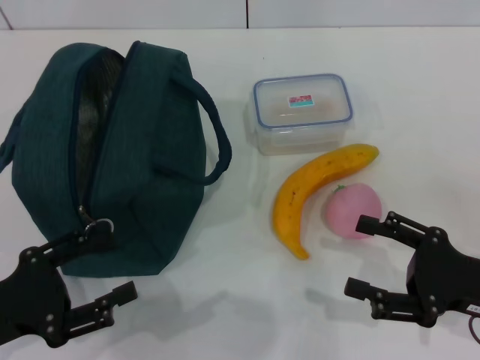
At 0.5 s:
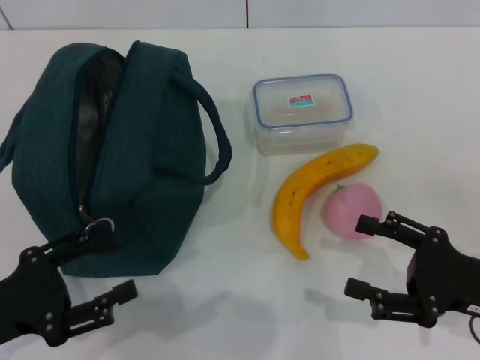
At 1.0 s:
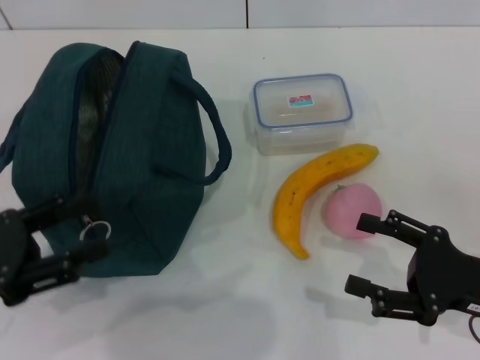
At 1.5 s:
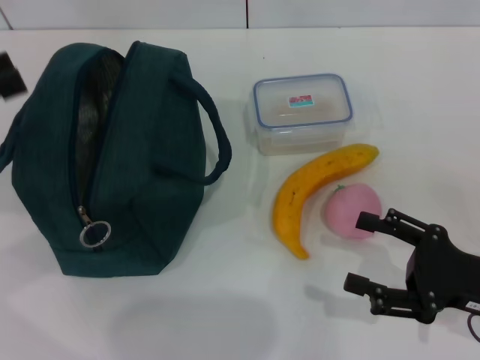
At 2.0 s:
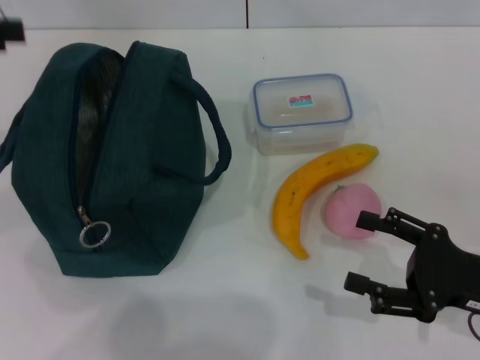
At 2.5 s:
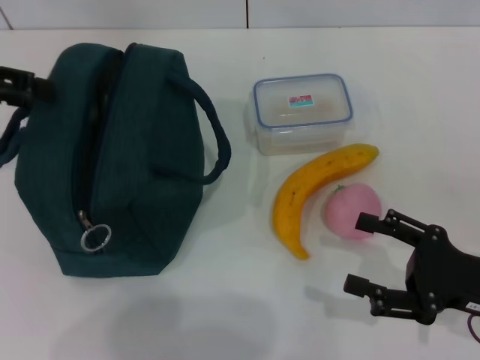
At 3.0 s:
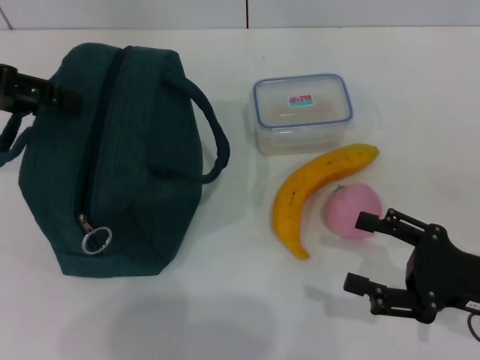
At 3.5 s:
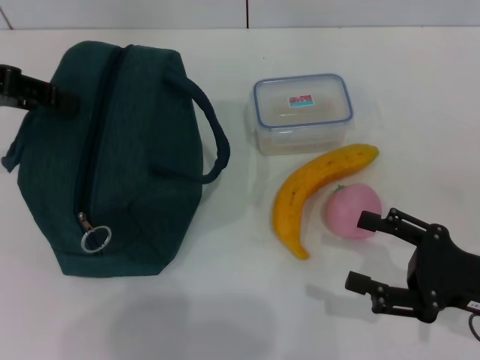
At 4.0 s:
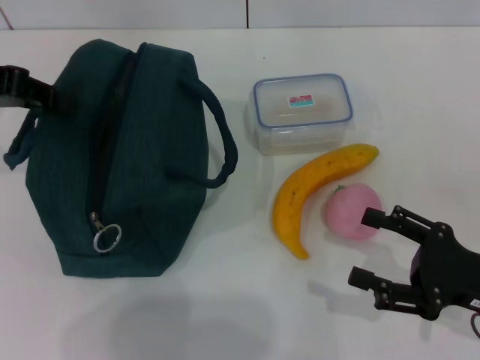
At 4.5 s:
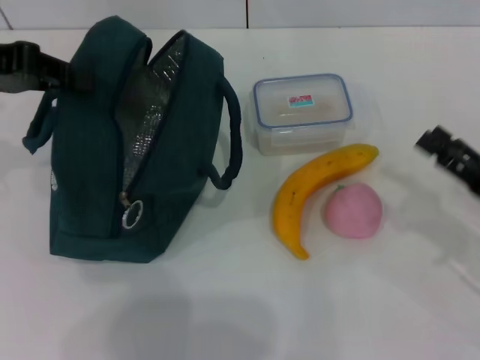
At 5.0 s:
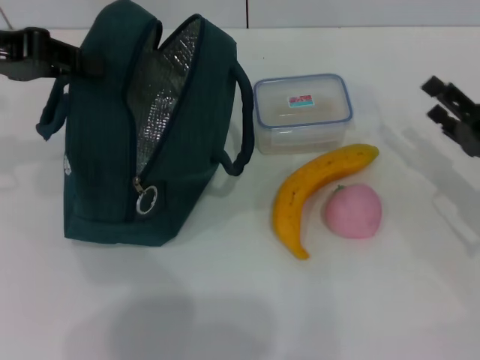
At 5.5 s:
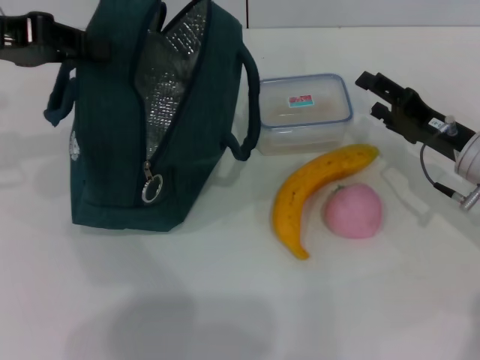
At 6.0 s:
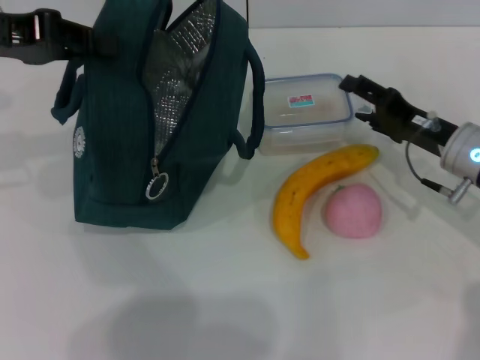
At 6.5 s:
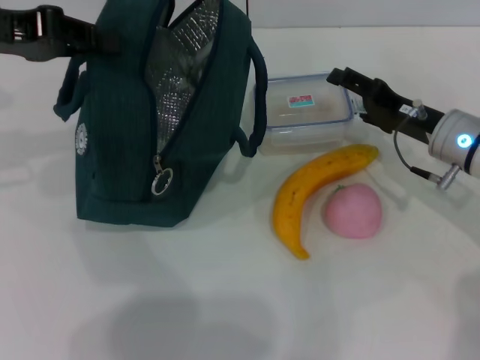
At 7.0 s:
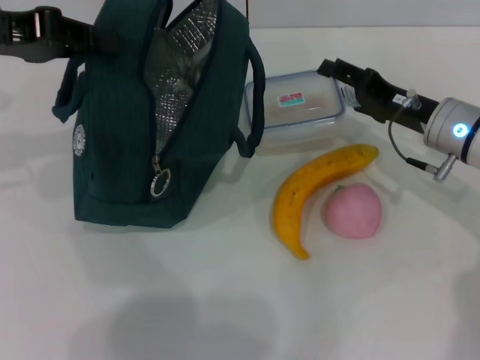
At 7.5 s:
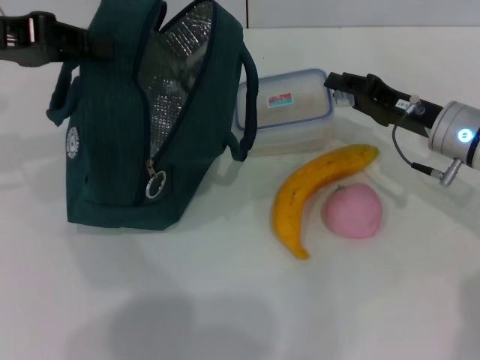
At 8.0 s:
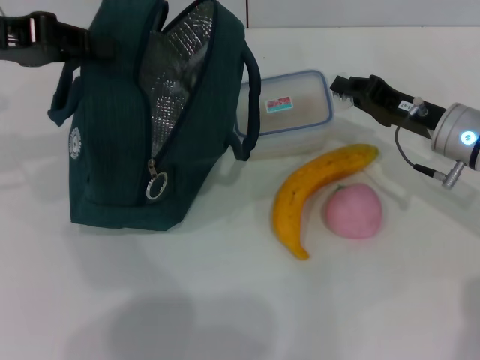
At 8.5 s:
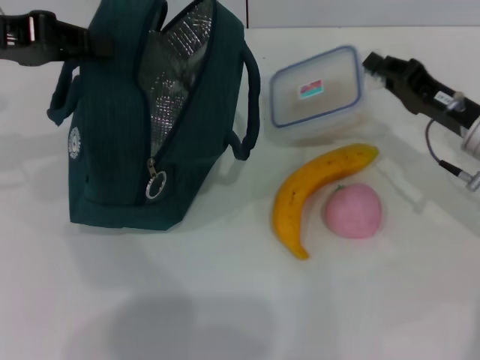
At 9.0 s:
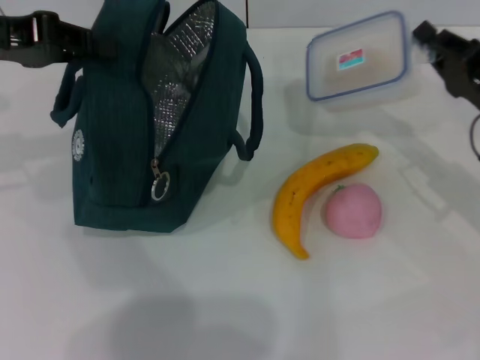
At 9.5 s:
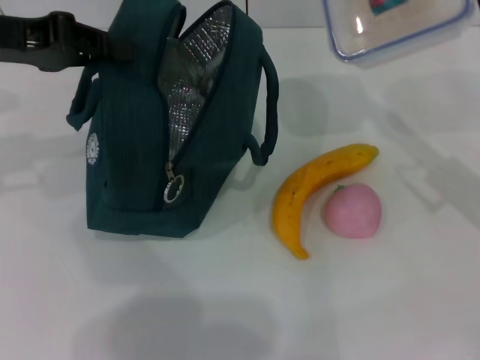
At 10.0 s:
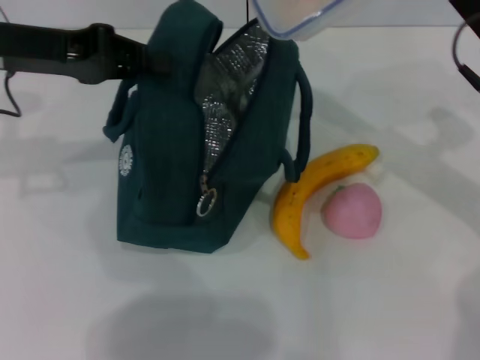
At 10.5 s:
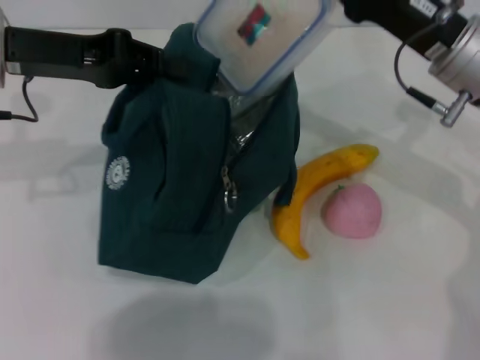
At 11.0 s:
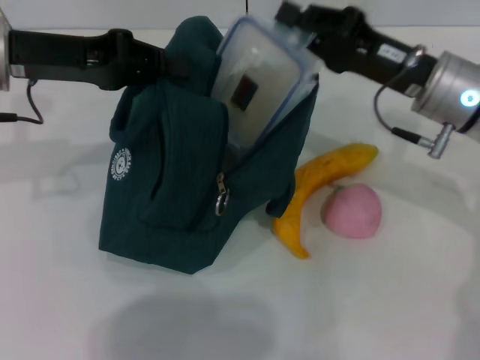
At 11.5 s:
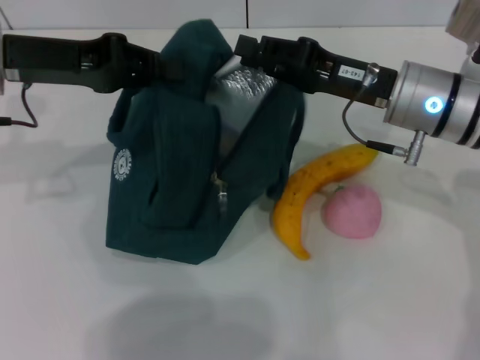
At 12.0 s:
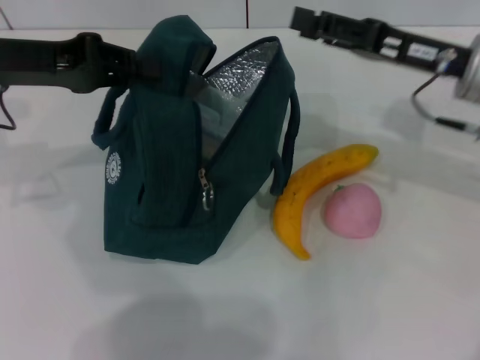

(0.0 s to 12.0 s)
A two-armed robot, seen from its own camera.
Step, 0.0 s - 3.5 s: Hold the lunch bag with your left hand.
Step, 4.0 s - 7.5 s: Pick up the lunch box with your right hand.
Step, 8.5 s - 11.0 s: Place the lunch box into the lunch bag with your right hand.
0.0 s - 2.0 s: The left gripper heads upward and forward, covering about 25 cm.
2.0 s - 4.0 s: The left gripper changes place by roughly 5 cm, and closes.
4.0 s - 6.0 s: The right gripper shifts about 15 cm forward.
6.0 s - 8.0 s: The right gripper closes its fingers.
8.0 s - 10.0 s: The right gripper goes about 10 cm upward.
10.0 s - 12.0 s: The right gripper opens its fingers.

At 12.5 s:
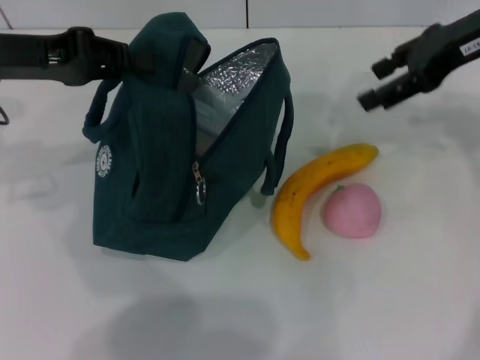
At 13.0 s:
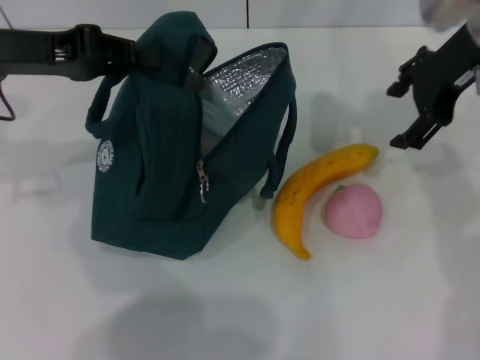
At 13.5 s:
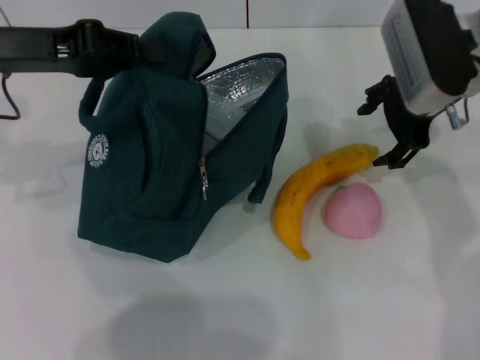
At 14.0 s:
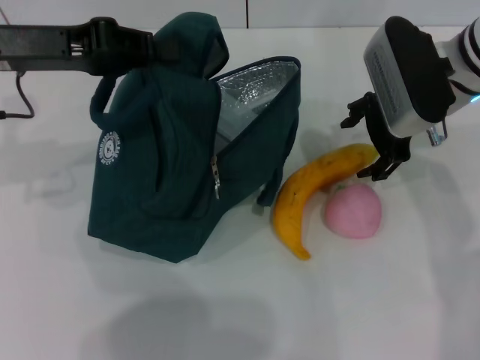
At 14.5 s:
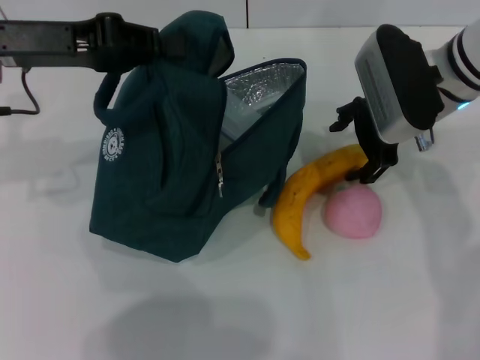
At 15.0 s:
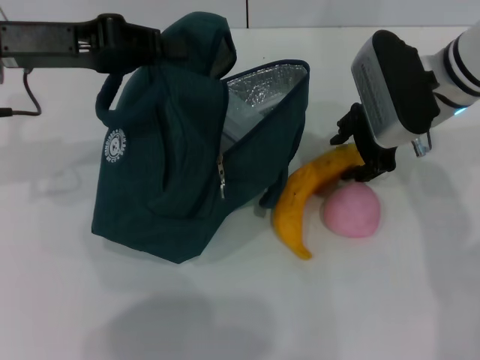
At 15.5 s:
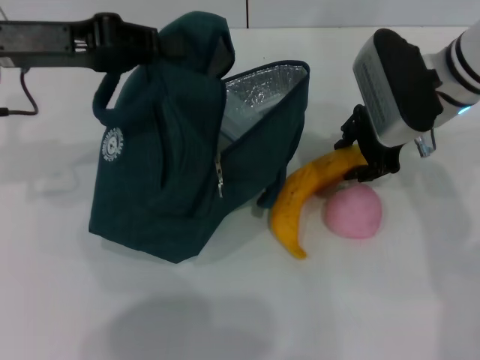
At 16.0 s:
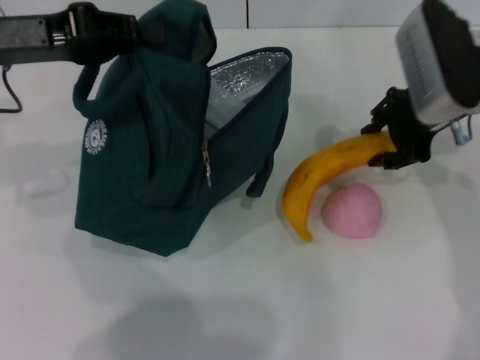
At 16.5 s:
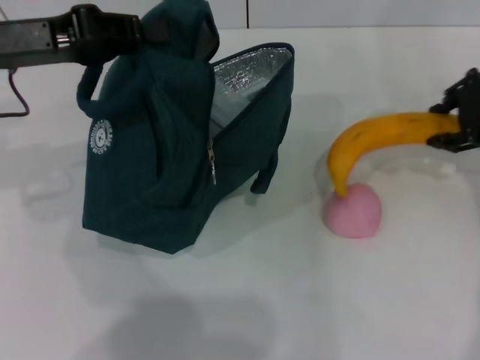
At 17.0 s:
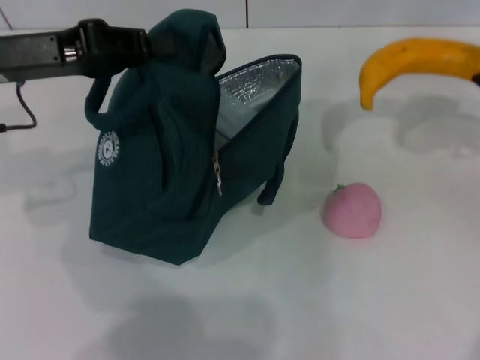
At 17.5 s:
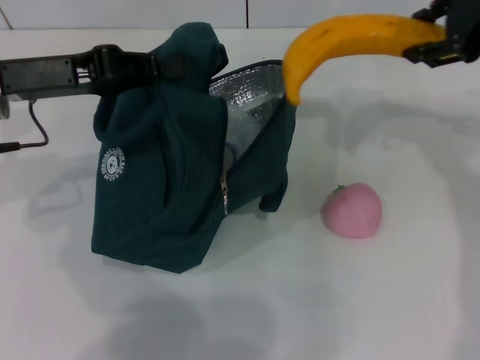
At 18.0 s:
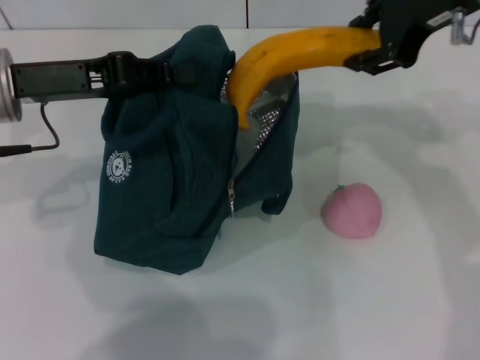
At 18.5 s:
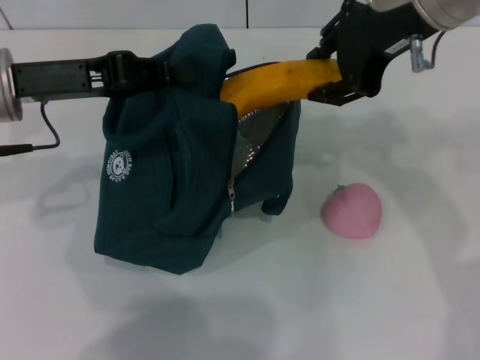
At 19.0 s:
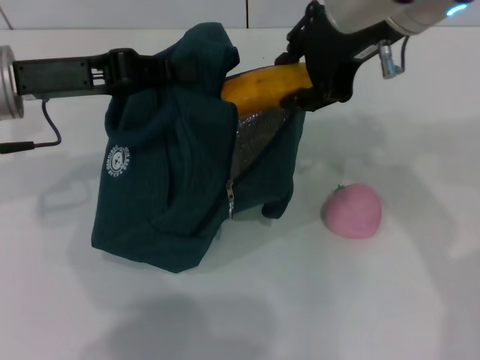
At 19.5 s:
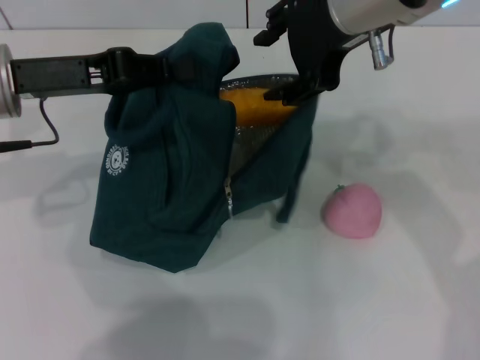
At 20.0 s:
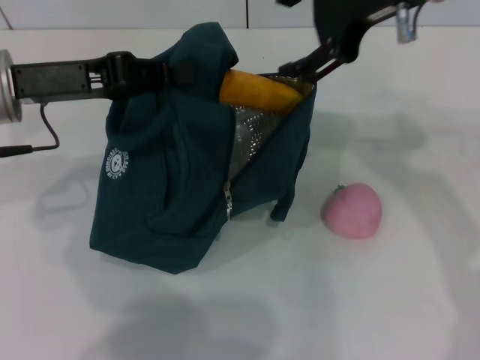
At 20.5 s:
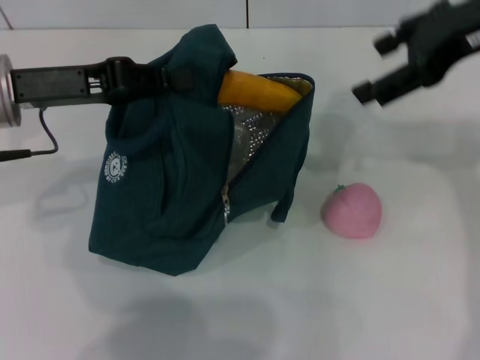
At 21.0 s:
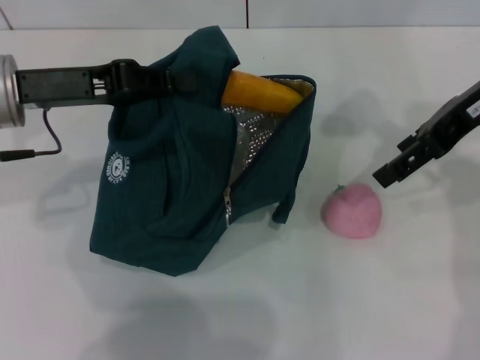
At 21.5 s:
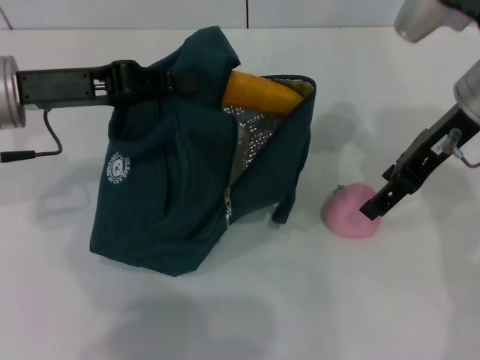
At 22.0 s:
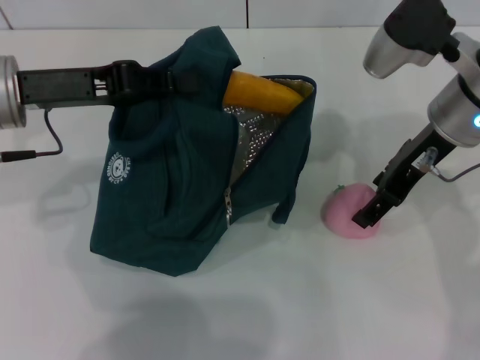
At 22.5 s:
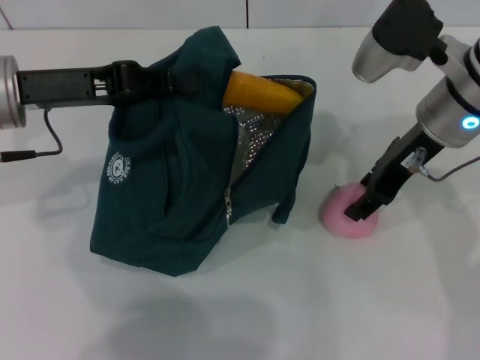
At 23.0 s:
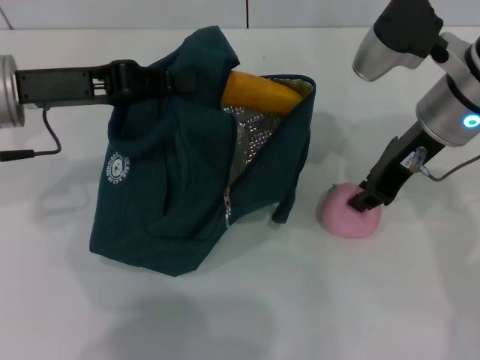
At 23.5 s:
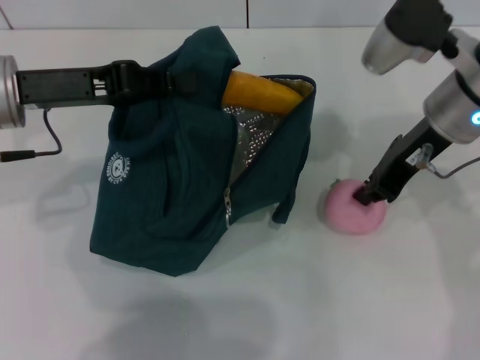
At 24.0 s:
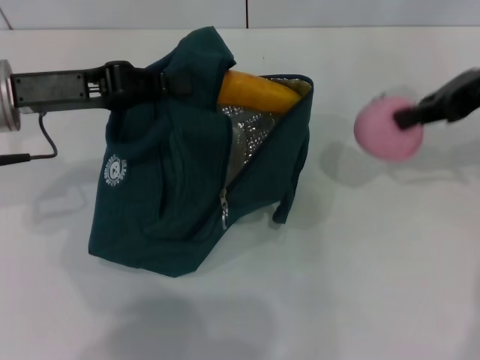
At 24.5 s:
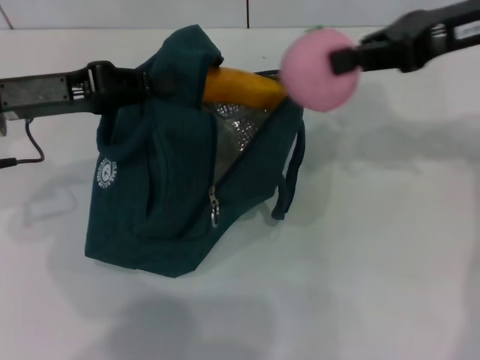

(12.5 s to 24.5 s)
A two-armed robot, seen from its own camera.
Step, 12.5 s - 15.5 s: Take the banana with your right hand.
Step, 16.0 s - 19.5 s: Put the banana into the lunch bag with your right hand.
Step, 20.0 s - 22.5 s: Grab the peach with your right hand.
12.5 s - 14.5 s: The right gripper is displaced downward and to the left by about 10 cm.
14.5 s - 16.5 s: The right gripper is displaced to the right by some 10 cm, and closes its fingers.
16.5 s - 18.5 s: The right gripper is displaced to the left and upward by some 15 cm.
18.5 s - 20.5 s: The right gripper heads to the right, covering about 10 cm, and opens its fingers.
20.5 s - 22.5 s: The right gripper heads downward and to the left, covering approximately 10 cm.
22.5 s - 24.5 s: The right gripper shifts approximately 10 cm upward and to the right, and closes.

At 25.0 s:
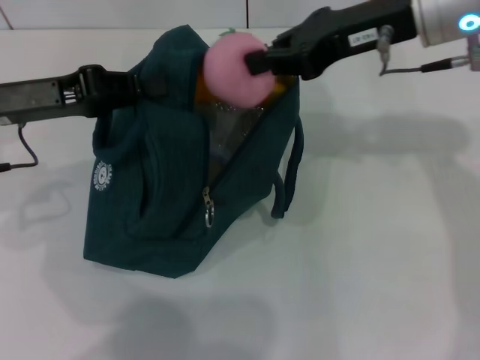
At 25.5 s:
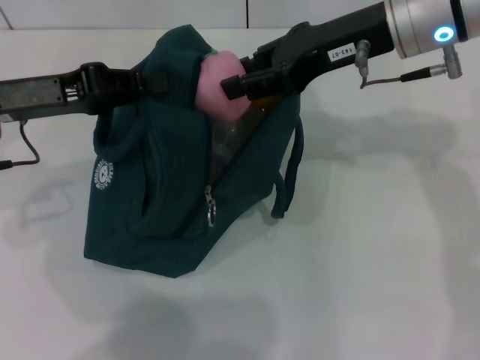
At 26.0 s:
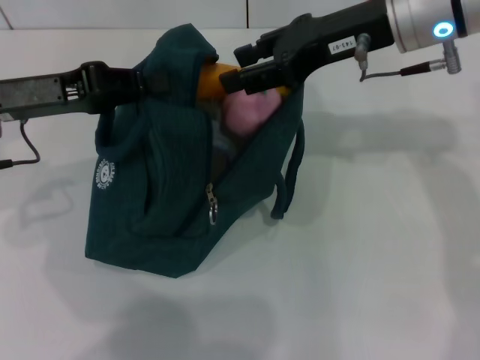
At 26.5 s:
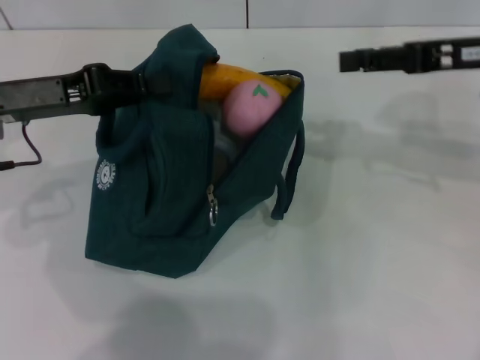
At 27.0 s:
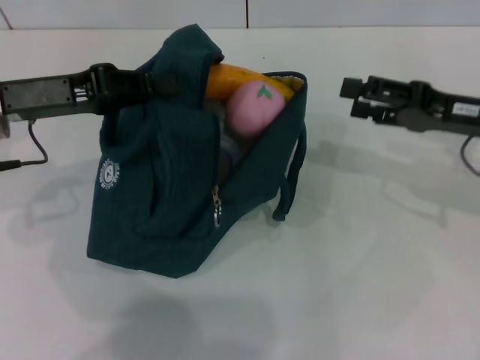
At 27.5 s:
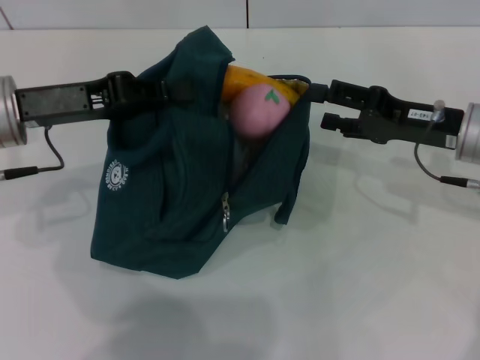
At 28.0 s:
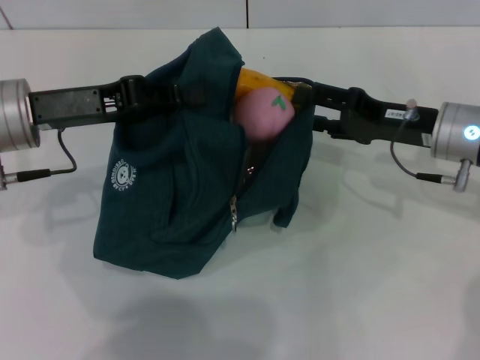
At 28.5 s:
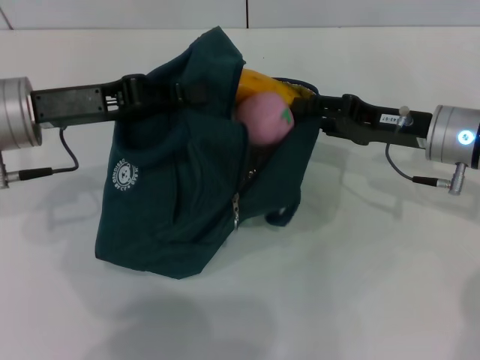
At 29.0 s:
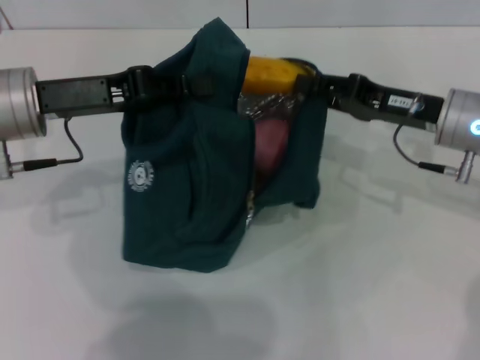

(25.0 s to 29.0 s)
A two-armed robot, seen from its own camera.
25.0 s - 27.0 s: The right gripper goes about 15 cm downward and to the right, and opens its fingers.
27.0 s - 29.0 s: The right gripper moves some 5 cm, and closes.
